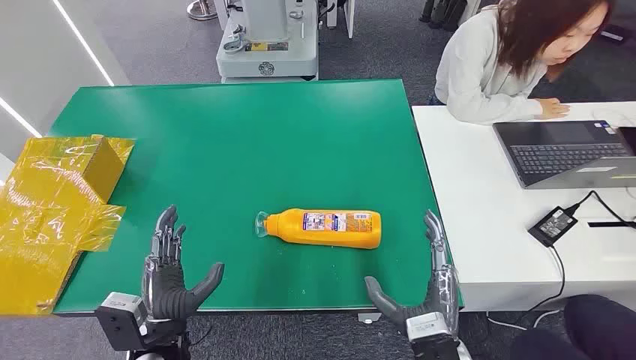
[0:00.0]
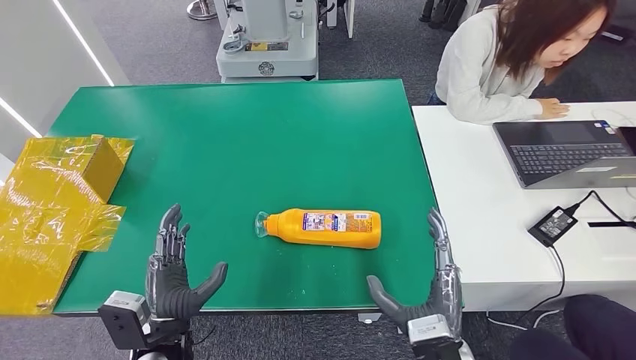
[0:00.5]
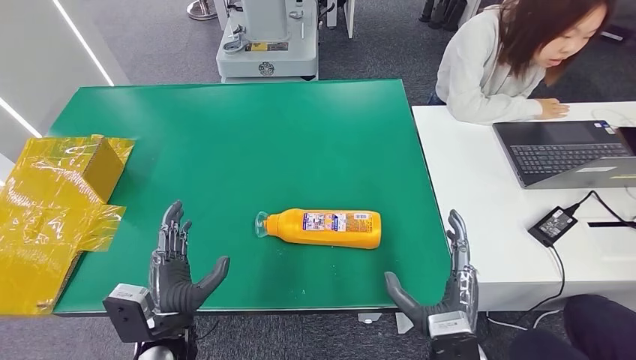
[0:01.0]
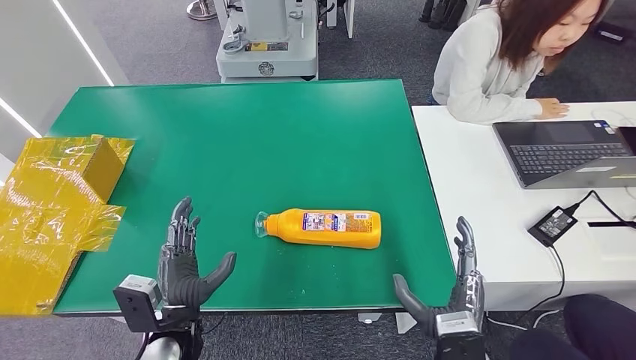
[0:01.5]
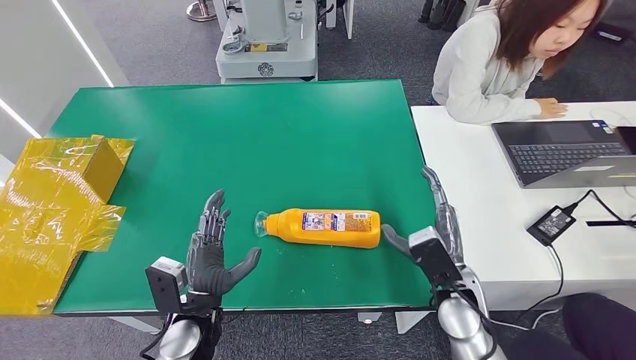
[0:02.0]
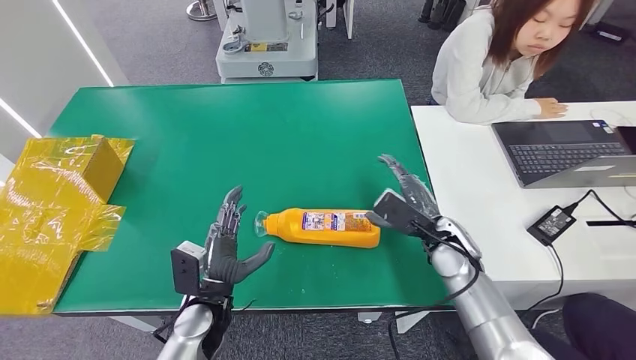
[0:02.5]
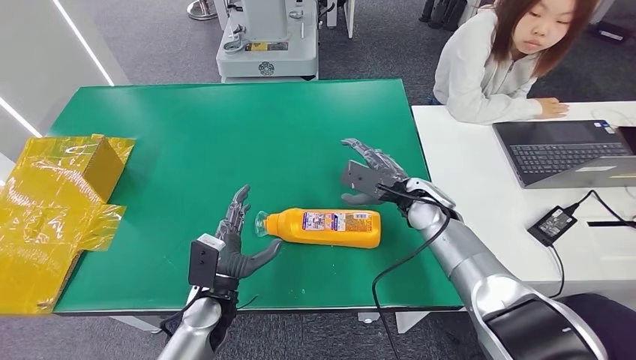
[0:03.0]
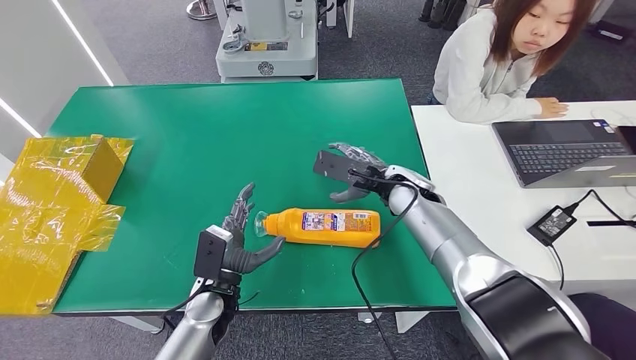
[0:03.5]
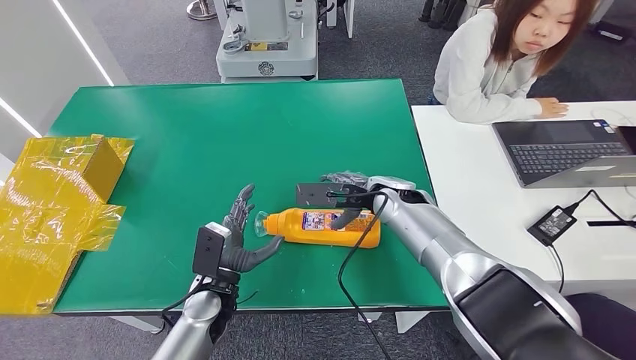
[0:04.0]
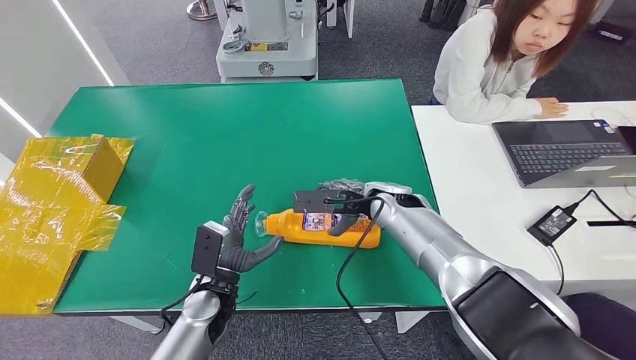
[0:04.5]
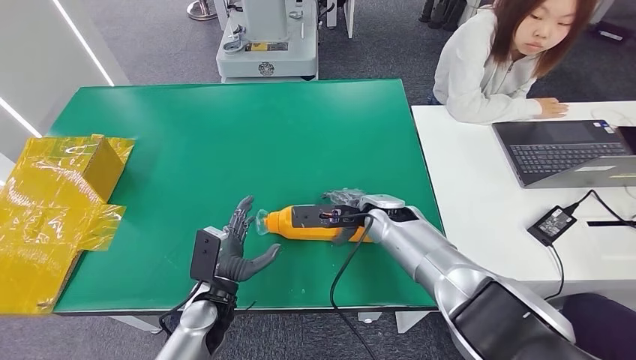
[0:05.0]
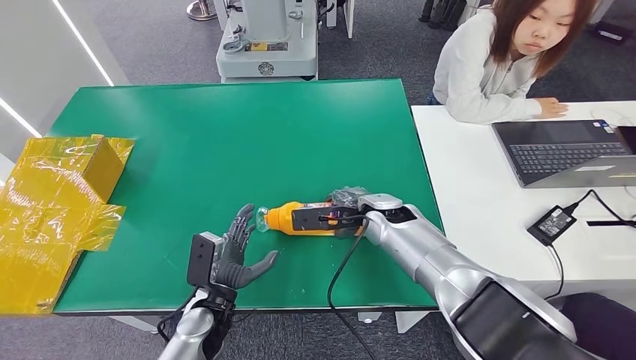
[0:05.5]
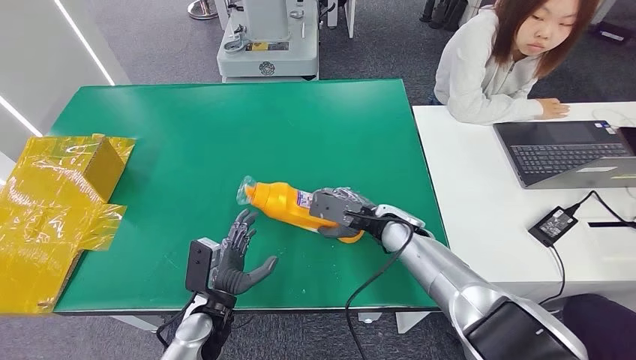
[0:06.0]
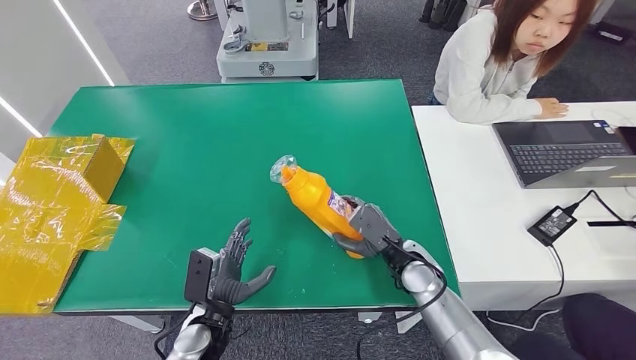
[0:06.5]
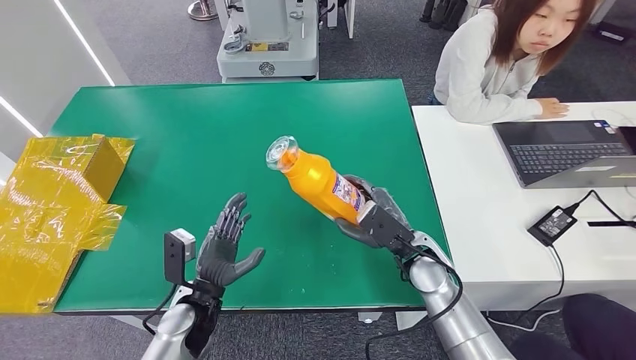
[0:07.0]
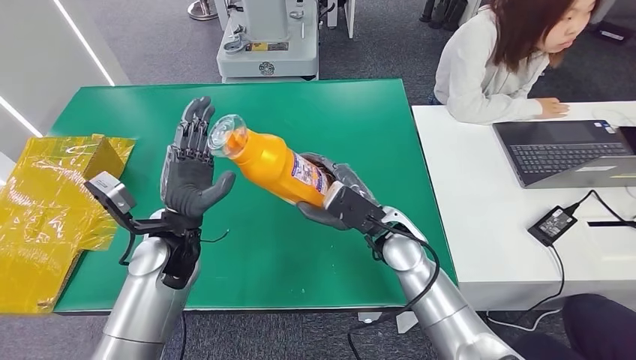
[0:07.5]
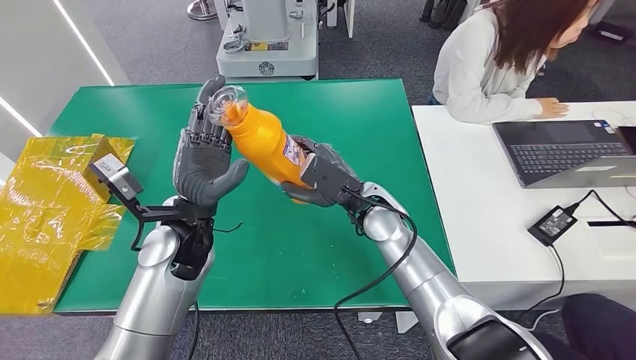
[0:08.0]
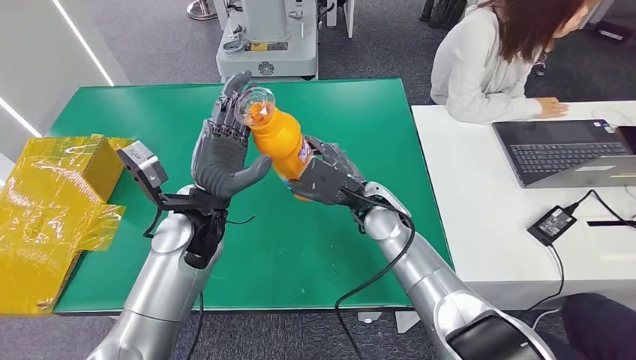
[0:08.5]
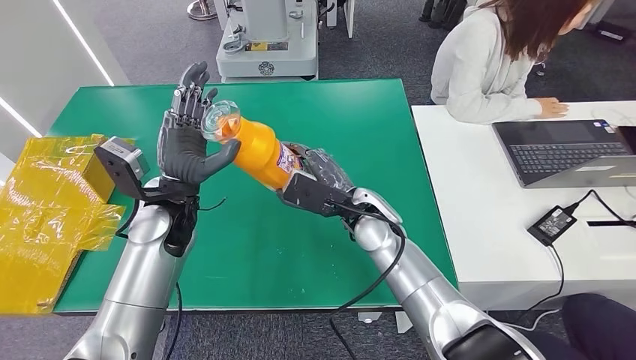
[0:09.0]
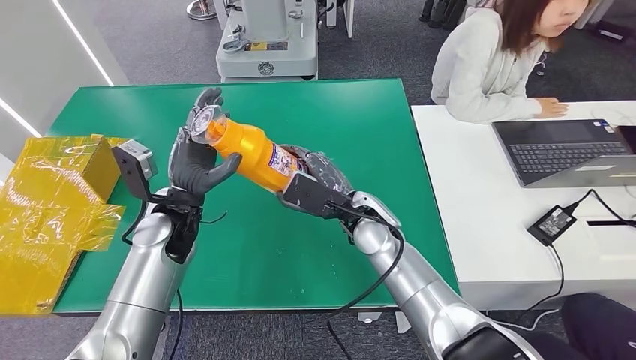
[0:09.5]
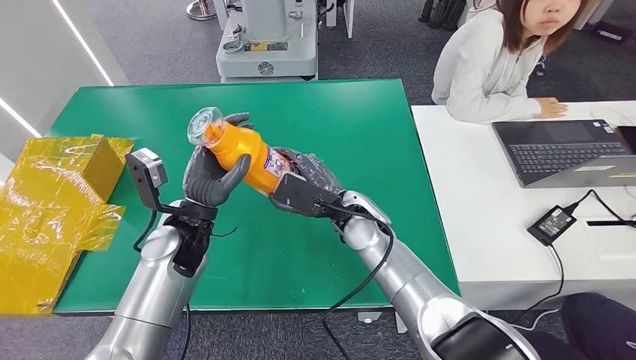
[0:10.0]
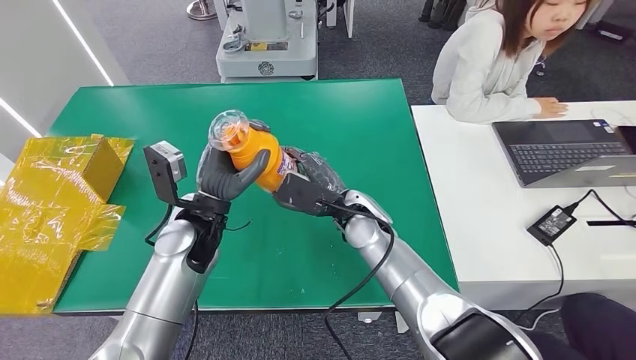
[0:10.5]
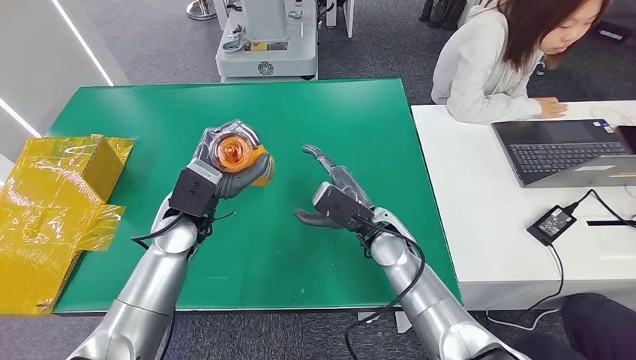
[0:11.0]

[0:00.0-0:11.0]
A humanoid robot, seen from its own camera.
Step, 0:00.0 to 0:08.5: Pick up the bottle from the table.
0:02.0 to 0:03.5: The right hand heads forward and upward, covering approximately 20 cm. The left hand shifts by roughly 5 cm.
0:03.5 to 0:05.5: The right hand ends up about 5 cm from where it was.
0:07.5 to 0:09.0: The left hand ends up some 5 cm from where it was. The right hand ends up approximately 5 cm from where it was.
0:09.0 to 0:11.0: The right hand changes place by some 5 cm.

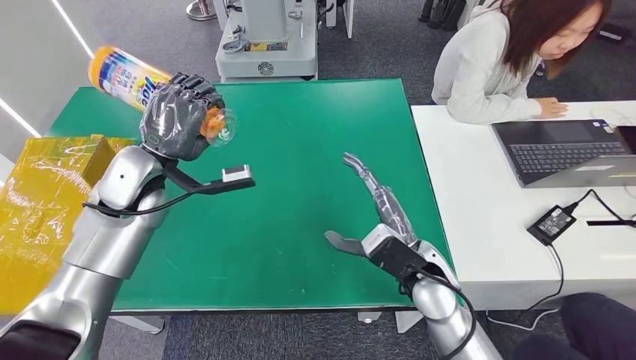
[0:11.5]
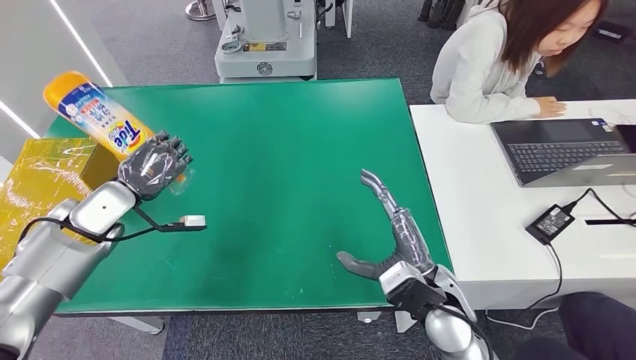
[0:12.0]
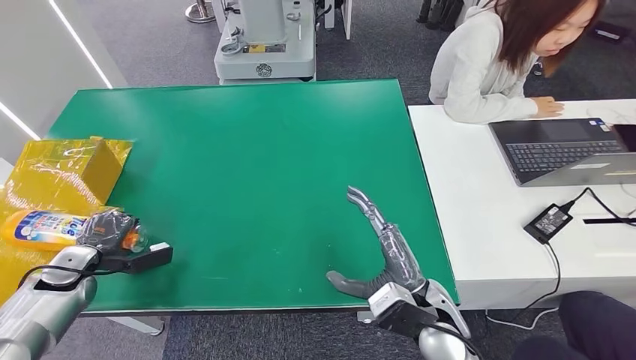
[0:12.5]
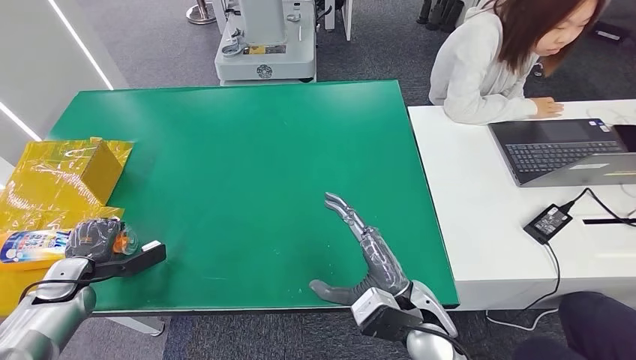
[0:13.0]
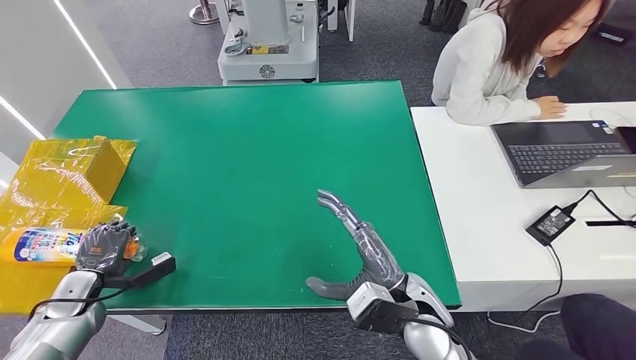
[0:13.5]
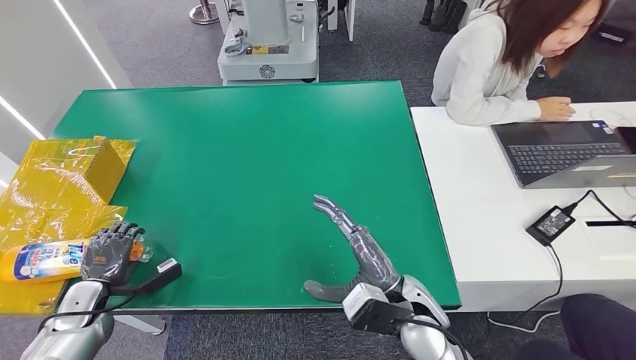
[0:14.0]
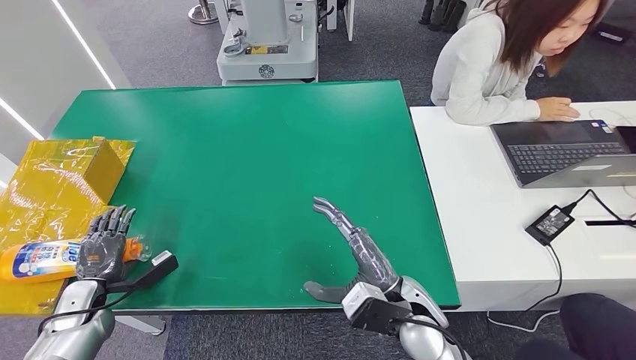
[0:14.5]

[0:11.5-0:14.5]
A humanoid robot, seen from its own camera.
Step, 0:11.5 to 0:14.5: Turn the bottle to the front side.
0:13.0 to 0:14.5: The left hand moves approximately 5 cm.
